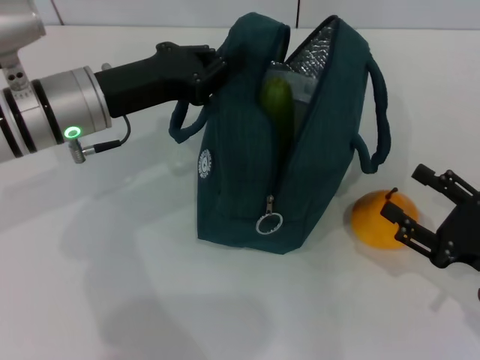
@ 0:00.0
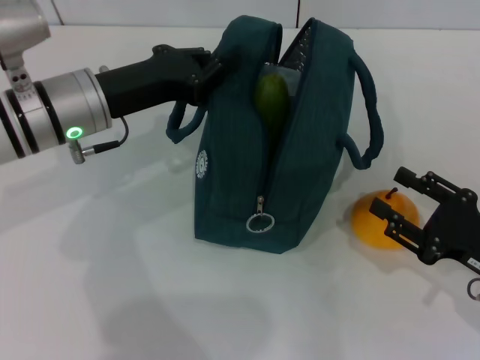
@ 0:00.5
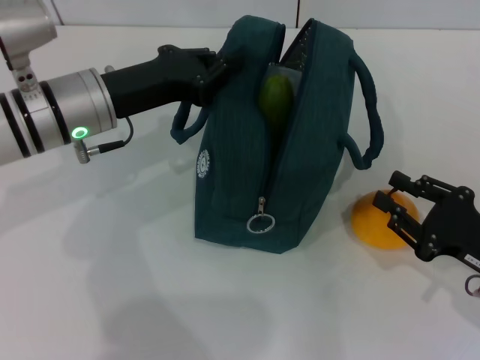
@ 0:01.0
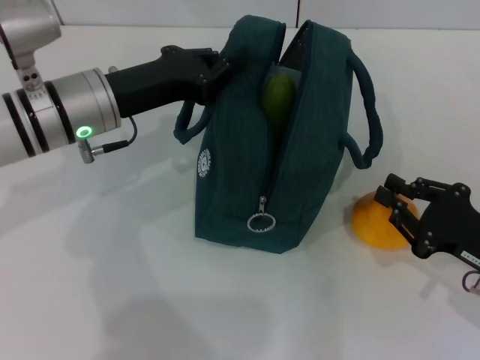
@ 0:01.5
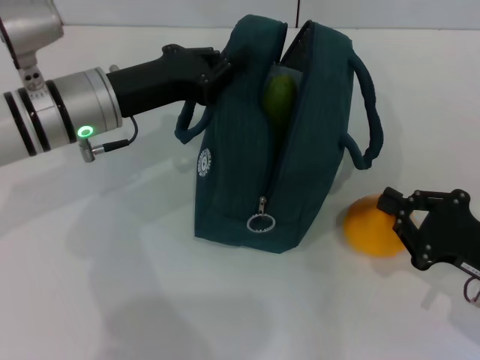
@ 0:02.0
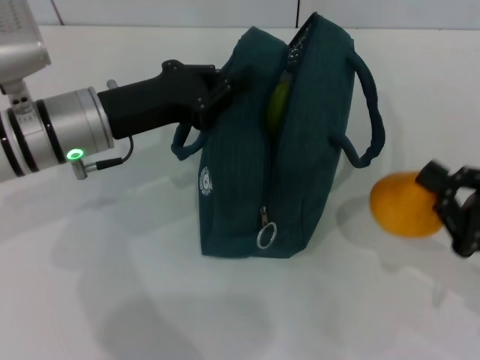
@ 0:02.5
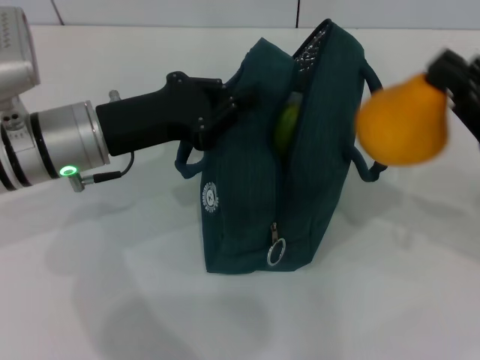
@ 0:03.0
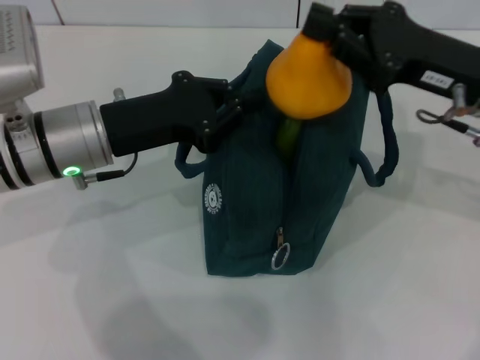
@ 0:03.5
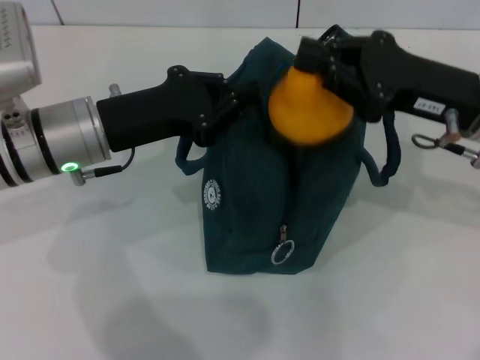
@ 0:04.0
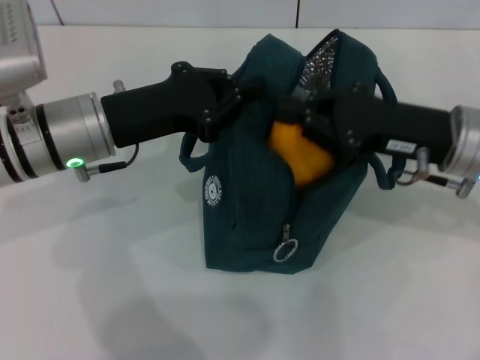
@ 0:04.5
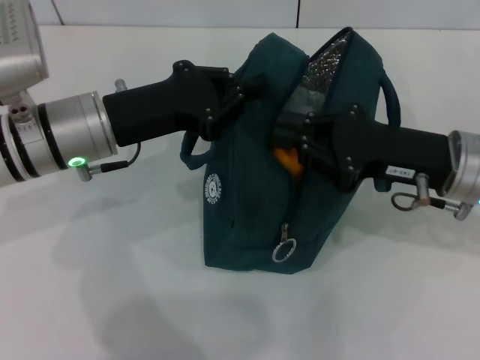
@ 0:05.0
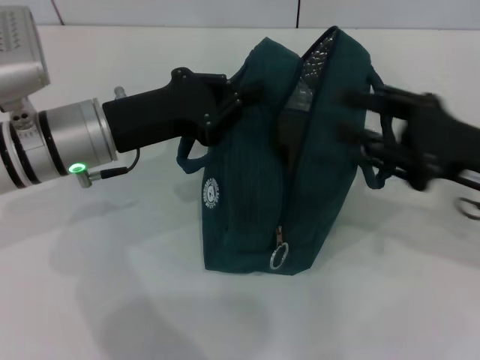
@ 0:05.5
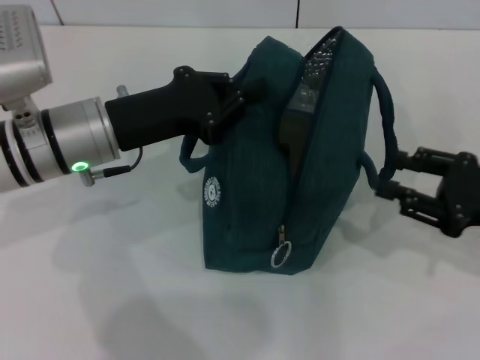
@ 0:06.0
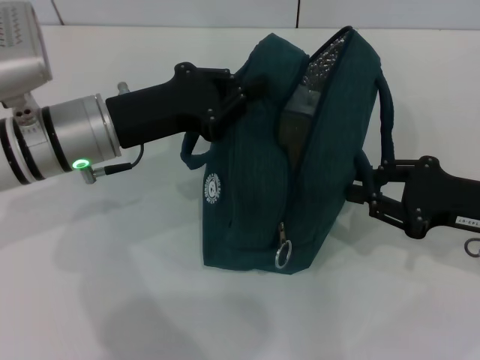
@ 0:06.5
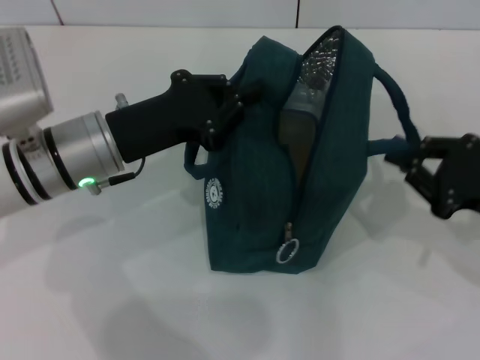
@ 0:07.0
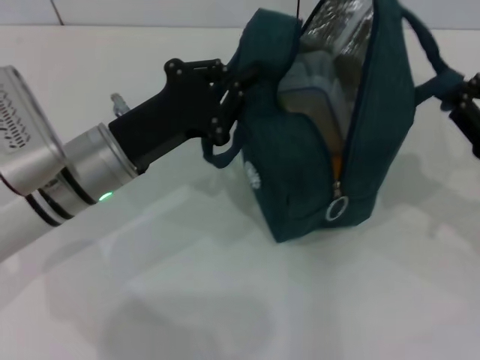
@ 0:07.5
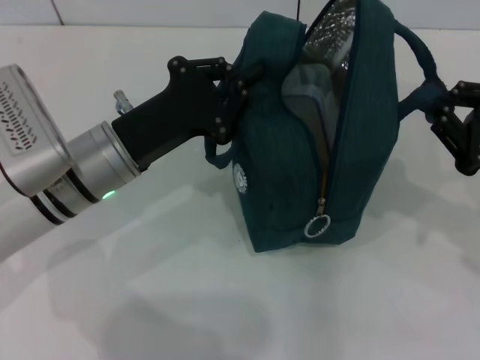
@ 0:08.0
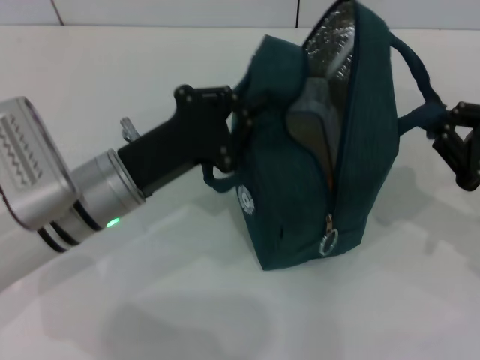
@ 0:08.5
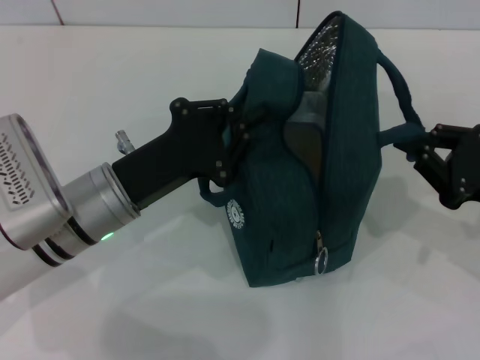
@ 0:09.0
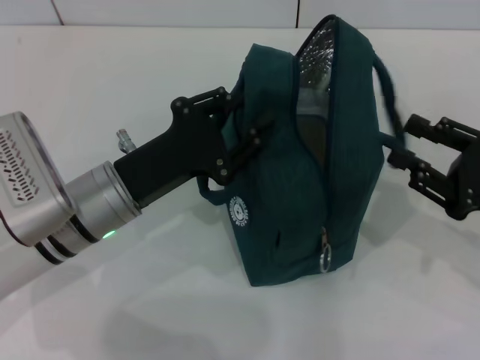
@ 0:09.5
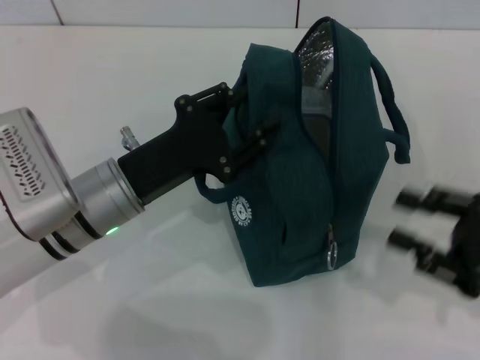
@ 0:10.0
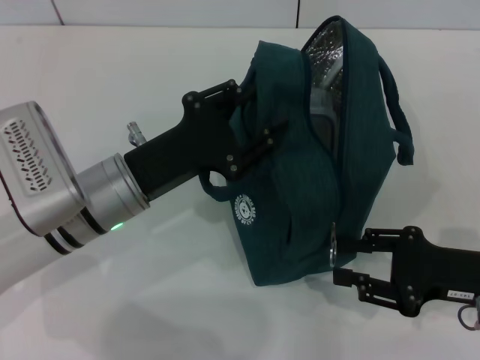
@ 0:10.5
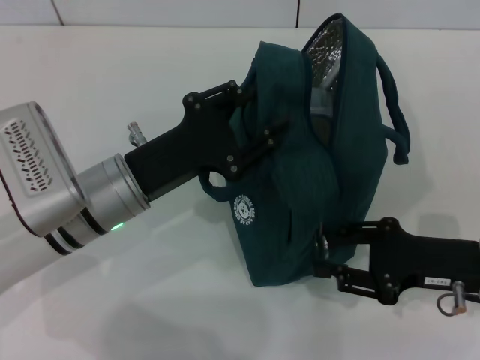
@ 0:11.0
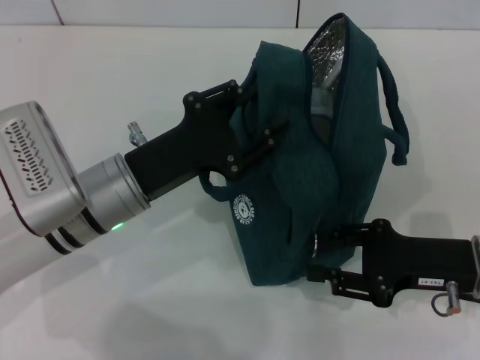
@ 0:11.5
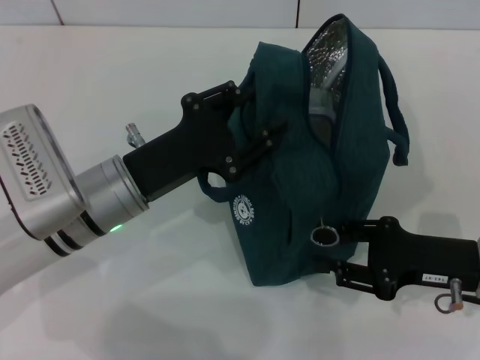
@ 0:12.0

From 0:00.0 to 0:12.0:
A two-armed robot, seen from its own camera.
Step, from 0:05.5 to 0:09.0: Hold the lunch bag with your right hand.
From 0:00.0 to 0:02.0: The right gripper closes up.
From 0:02.0 to 0:04.0: The right gripper shifts some 20 cm upward, forward and to the left.
From 0:04.0 to 0:06.0: The right gripper heads to the right, downward and backward, covering approximately 15 cm, and opens.
From 0:06.0 to 0:08.0: The right gripper closes.
From 0:08.0 to 0:10.0: The left gripper opens up; the right gripper heads backward, covering about 5 cm, and opens up.
From 0:10.0 to 0:12.0: The right gripper goes some 5 cm to the left.

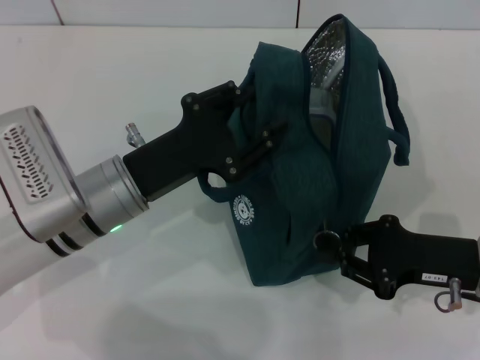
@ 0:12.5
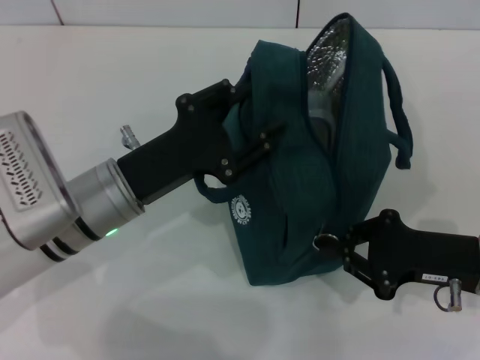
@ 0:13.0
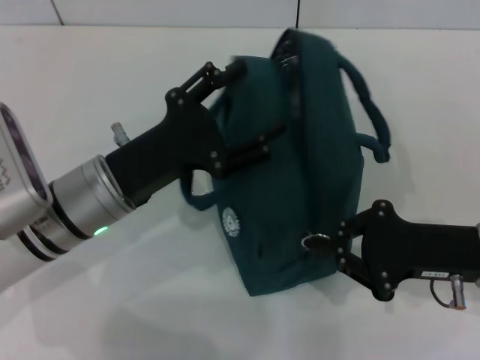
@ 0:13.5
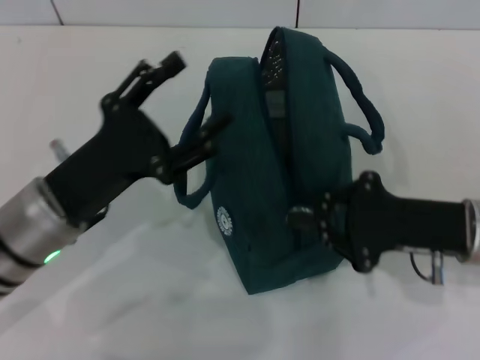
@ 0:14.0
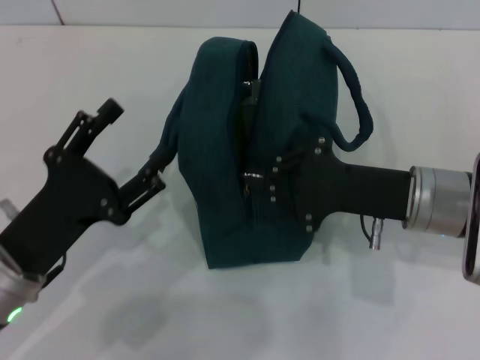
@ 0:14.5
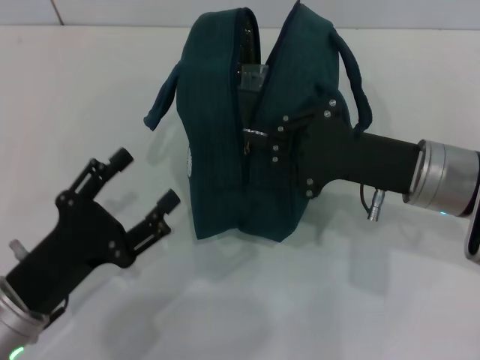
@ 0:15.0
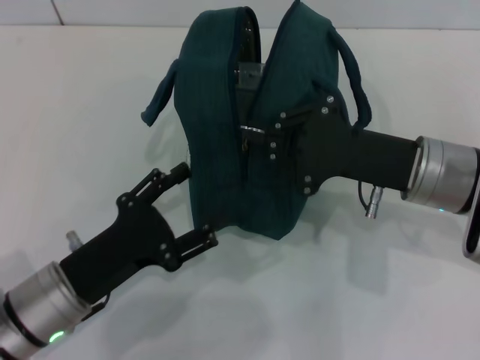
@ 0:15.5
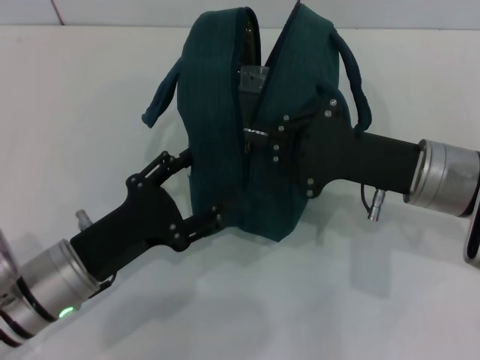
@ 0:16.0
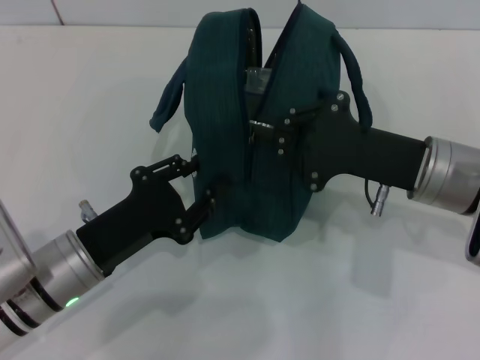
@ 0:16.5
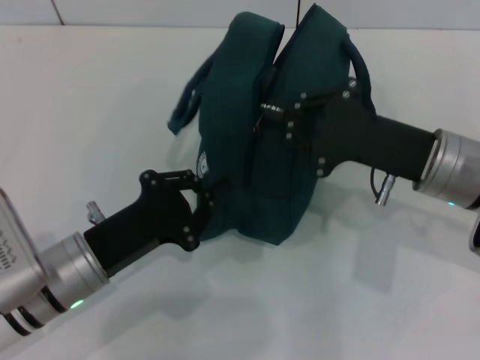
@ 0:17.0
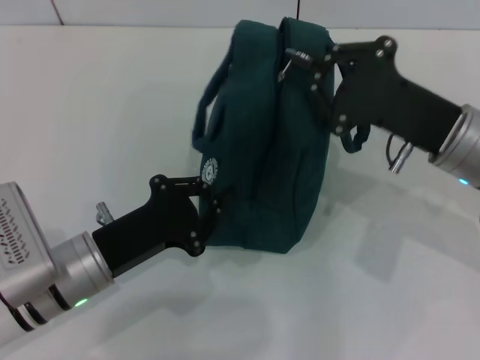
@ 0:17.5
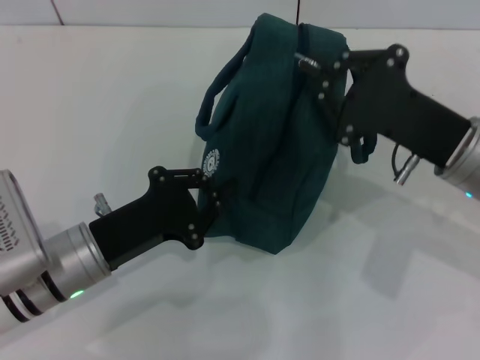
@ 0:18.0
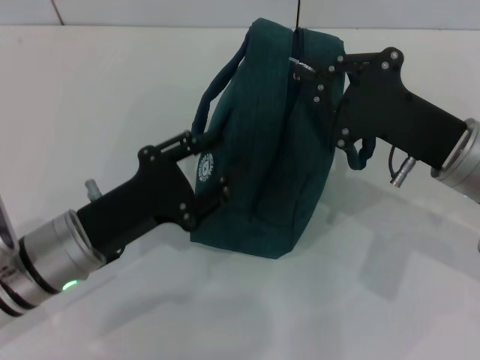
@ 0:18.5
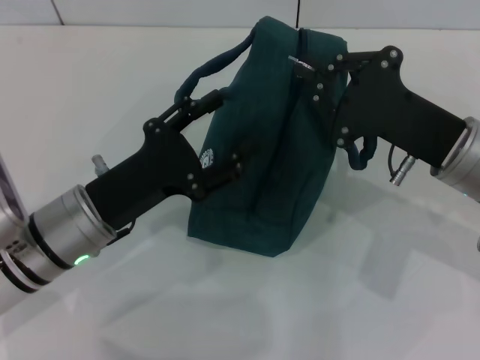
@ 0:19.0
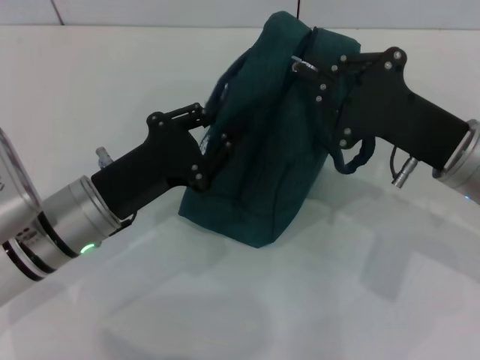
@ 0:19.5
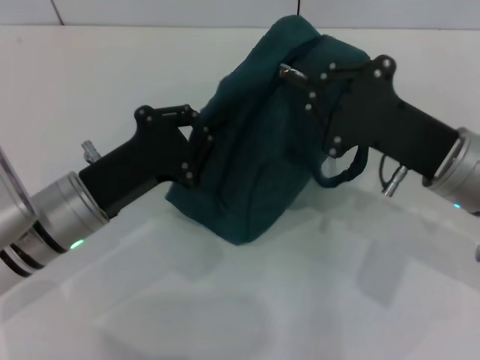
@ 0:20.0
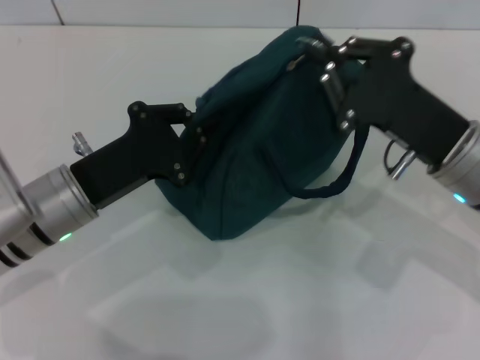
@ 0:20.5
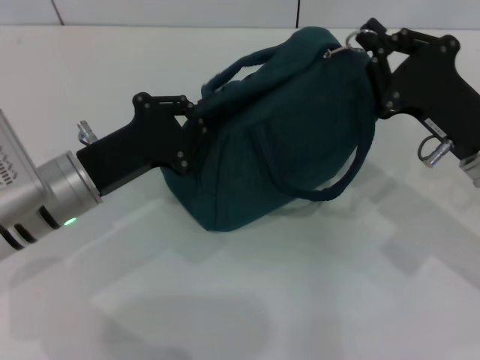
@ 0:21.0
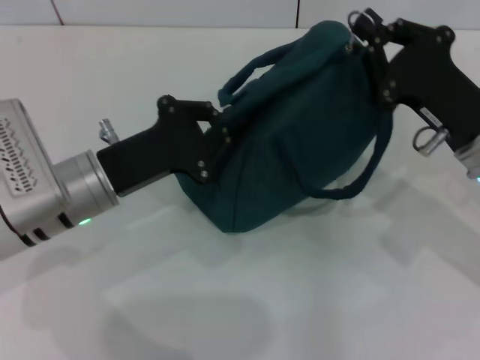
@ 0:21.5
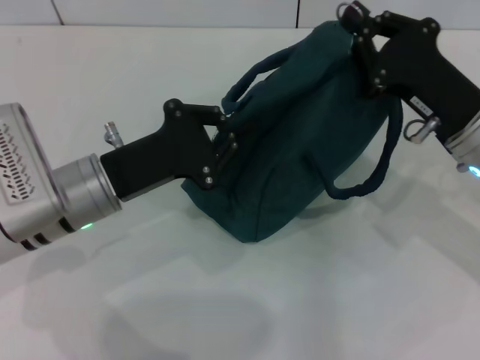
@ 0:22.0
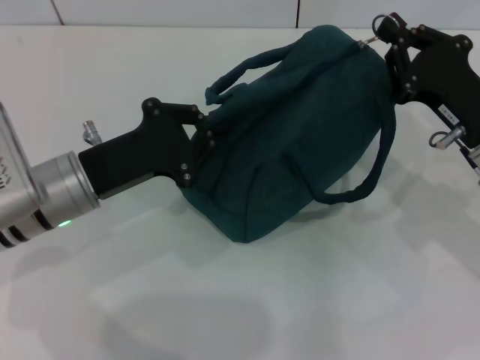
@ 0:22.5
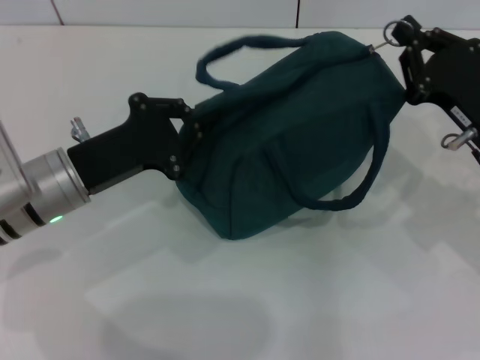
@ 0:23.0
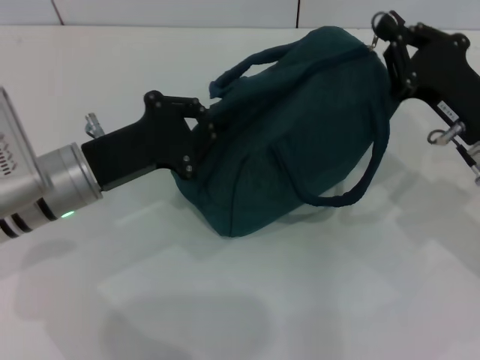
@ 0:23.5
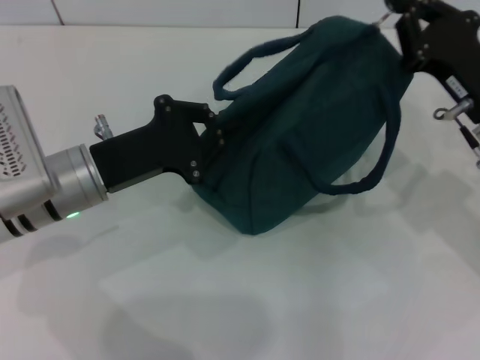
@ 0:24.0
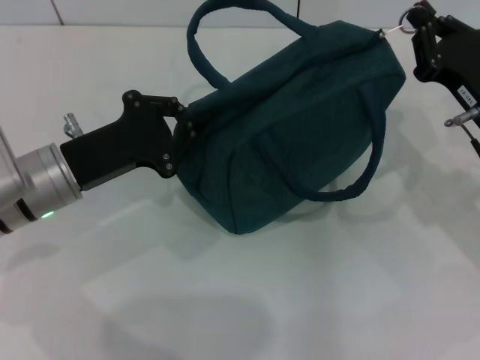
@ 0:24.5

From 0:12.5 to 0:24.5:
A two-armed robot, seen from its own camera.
From 0:12.5 to 0:14.5: The left gripper heads backward and to the left, covering some 10 cm, and opens up. The right gripper goes some 5 cm to the left.
From 0:16.5 to 0:18.5: The left gripper closes.
From 0:18.5 to 0:20.5: The left gripper opens, then closes again.
From 0:22.5 to 0:24.5: There are only small adjustments of the grippers.

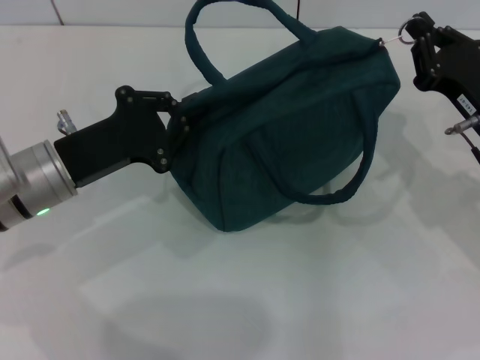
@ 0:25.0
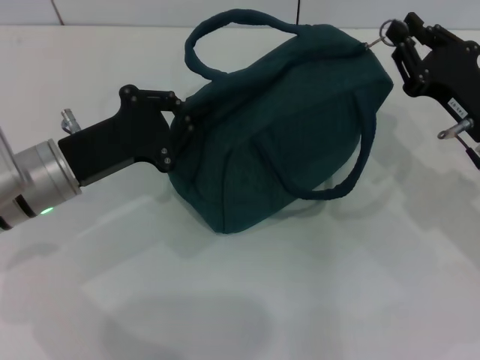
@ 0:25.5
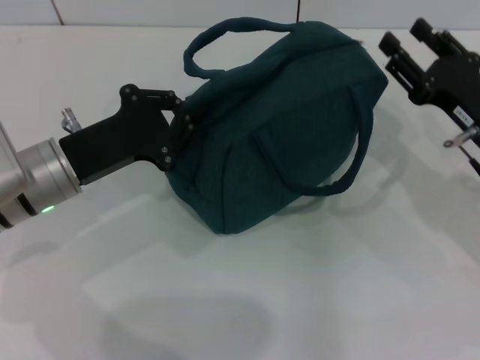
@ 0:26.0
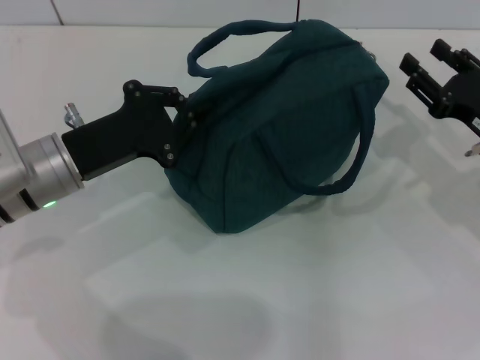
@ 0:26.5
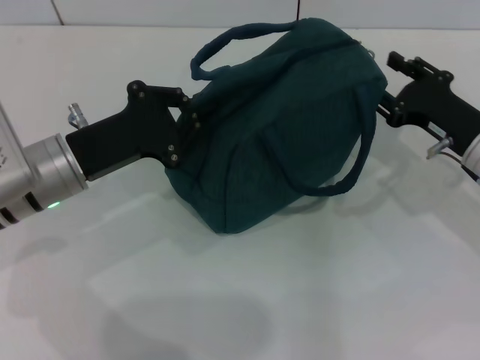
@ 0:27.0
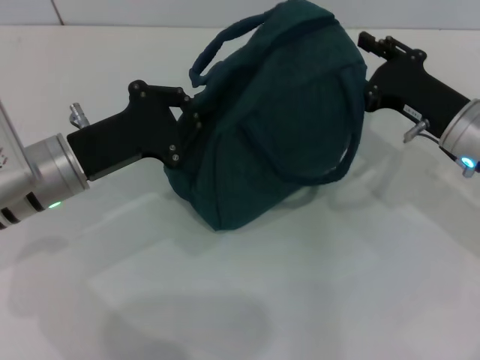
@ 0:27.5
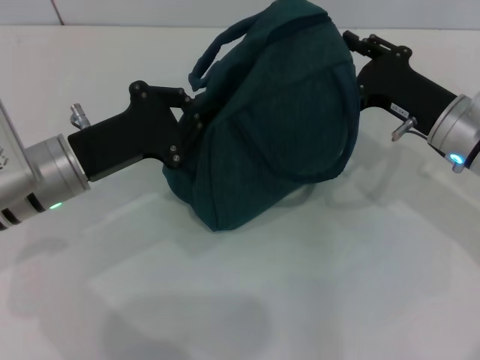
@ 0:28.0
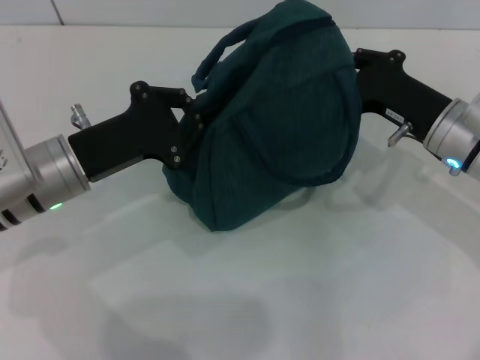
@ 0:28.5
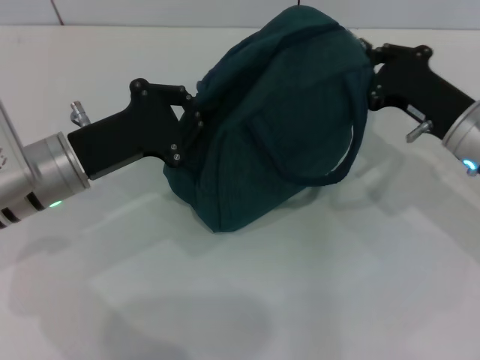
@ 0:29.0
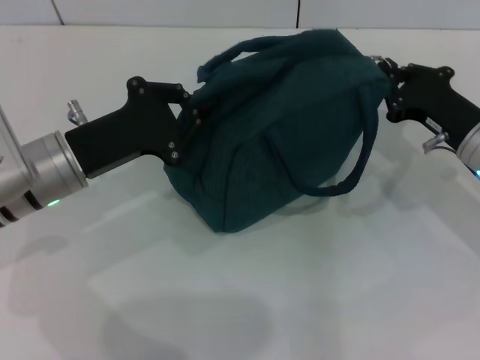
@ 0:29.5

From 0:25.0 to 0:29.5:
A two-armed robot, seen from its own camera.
From 0:25.0 to 0:27.0: The right gripper opens its fingers.
From 0:27.0 to 0:29.5: The right gripper closes.
